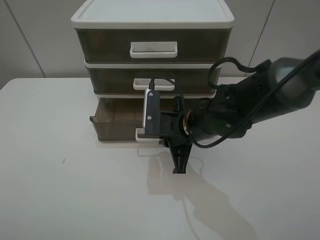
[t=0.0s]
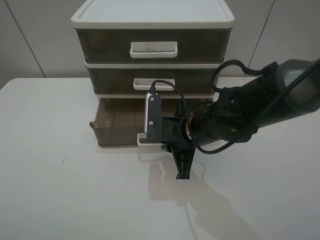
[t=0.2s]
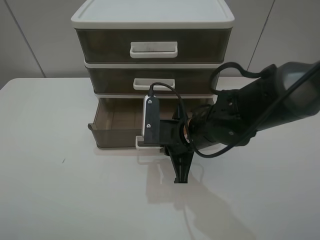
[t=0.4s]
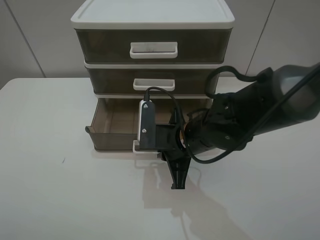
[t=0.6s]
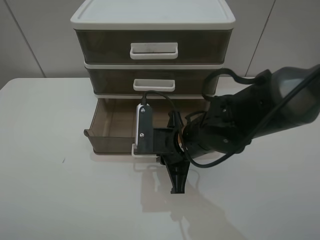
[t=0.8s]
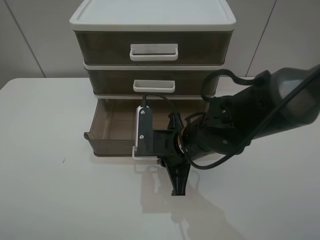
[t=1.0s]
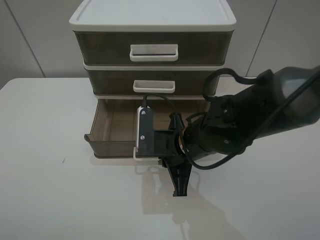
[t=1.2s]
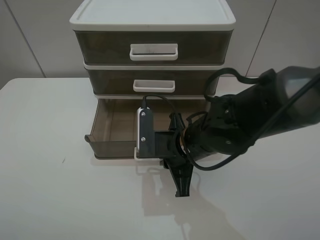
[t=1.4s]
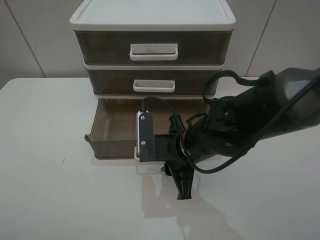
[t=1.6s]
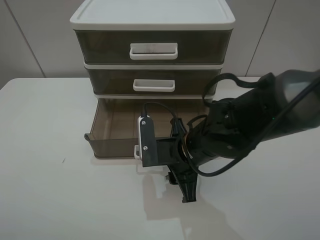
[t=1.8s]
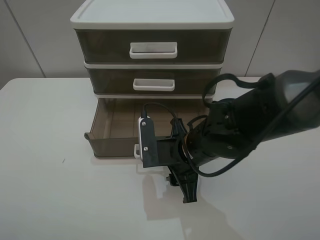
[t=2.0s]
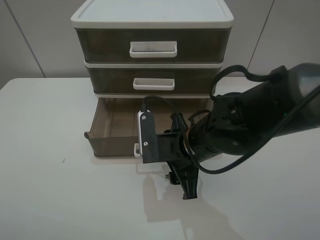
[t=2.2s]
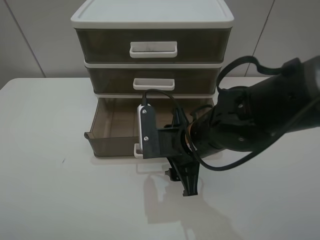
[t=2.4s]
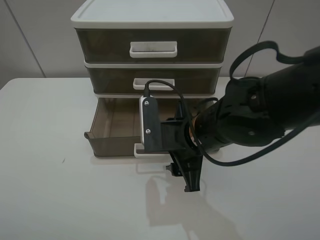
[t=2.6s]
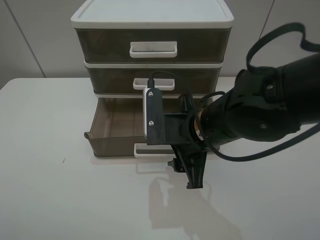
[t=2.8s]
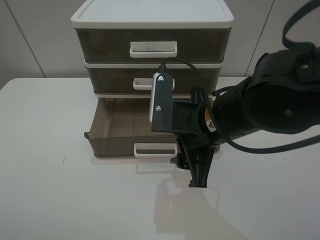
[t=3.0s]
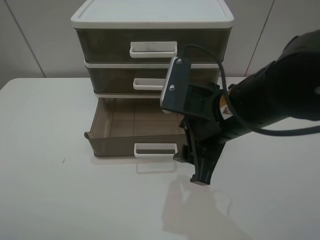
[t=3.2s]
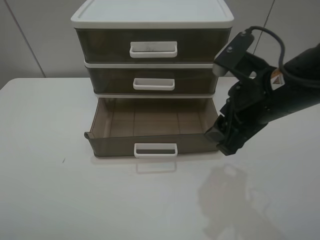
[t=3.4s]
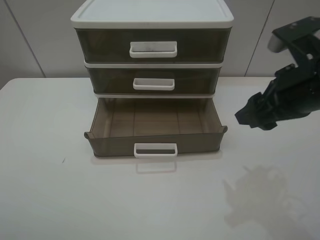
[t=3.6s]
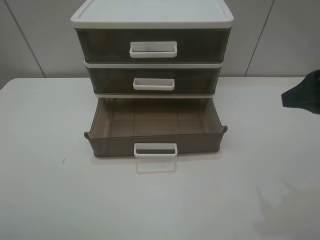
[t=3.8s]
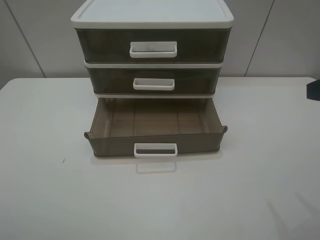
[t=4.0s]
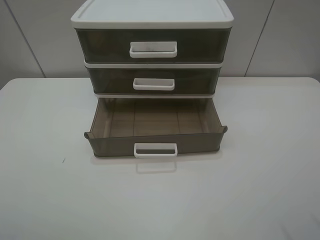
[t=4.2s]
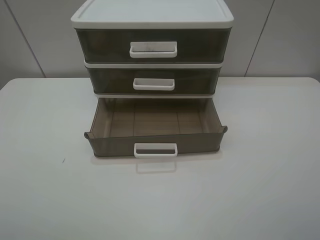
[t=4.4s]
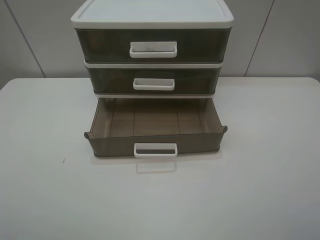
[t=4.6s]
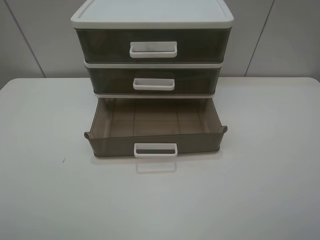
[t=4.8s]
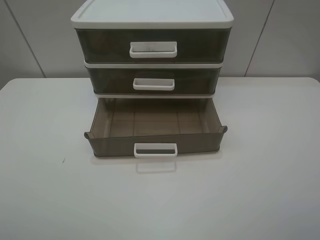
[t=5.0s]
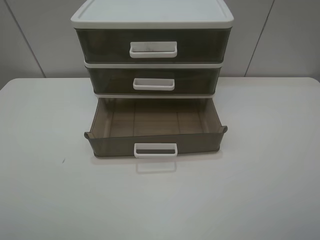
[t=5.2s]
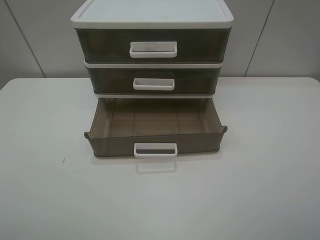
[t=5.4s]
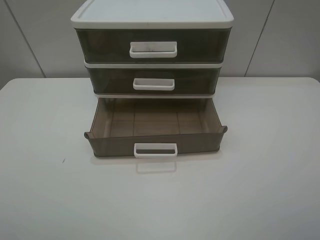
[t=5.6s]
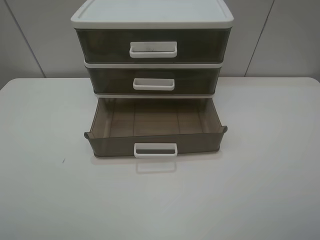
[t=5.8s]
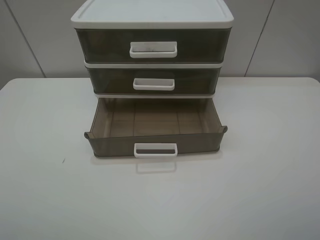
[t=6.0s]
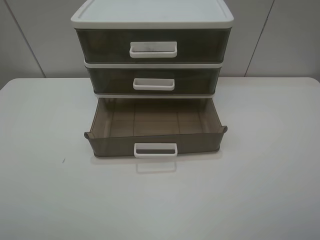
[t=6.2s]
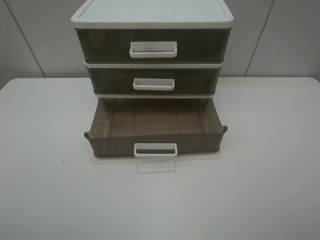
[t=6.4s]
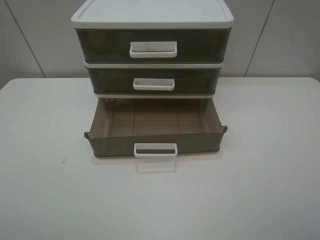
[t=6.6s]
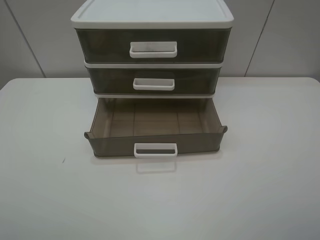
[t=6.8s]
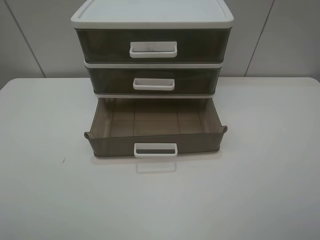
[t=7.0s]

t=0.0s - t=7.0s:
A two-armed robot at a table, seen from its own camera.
Task of the whole recording: open the bottom drawer.
Step, t=0.0s - t=2.4s: Pull open the drawer with the right gripper.
t=0.0s - t=1.4s: The grippers move only a little.
t=1.4s - t=2.8s: The right gripper is displaced upward by about 5 cm, and opens up.
t=2.8s - t=4.2s: The right gripper is displaced to the right, upward and backward by roughly 30 cm.
